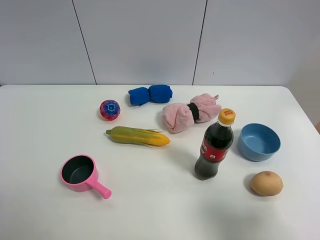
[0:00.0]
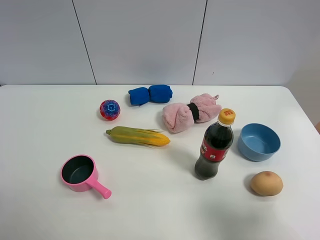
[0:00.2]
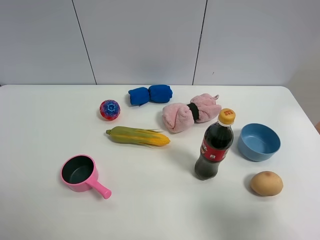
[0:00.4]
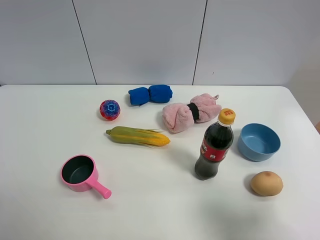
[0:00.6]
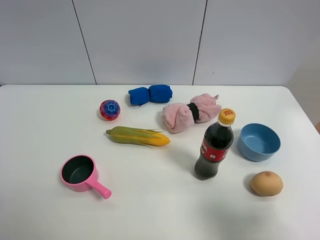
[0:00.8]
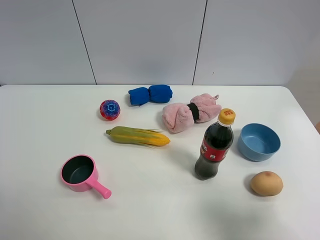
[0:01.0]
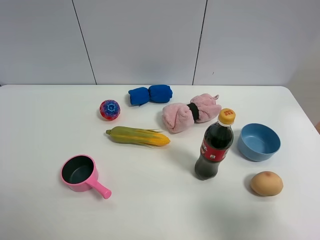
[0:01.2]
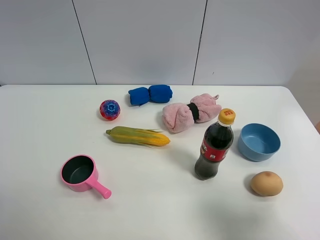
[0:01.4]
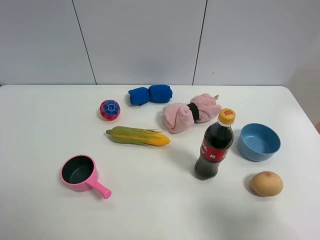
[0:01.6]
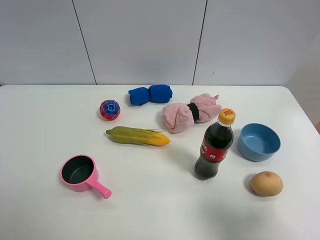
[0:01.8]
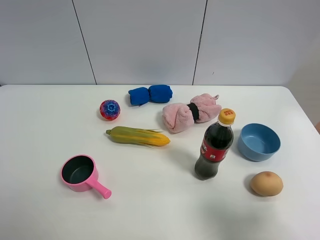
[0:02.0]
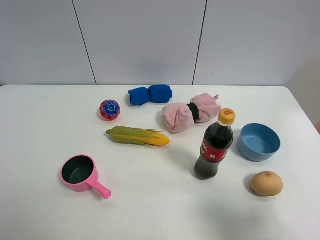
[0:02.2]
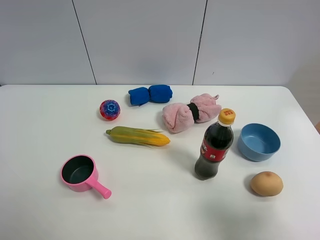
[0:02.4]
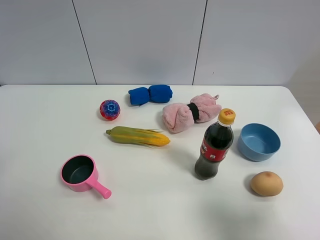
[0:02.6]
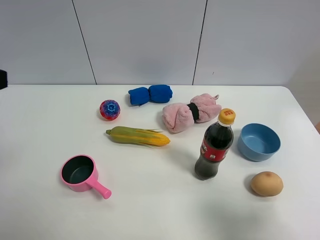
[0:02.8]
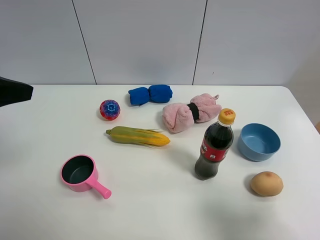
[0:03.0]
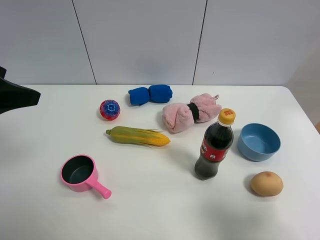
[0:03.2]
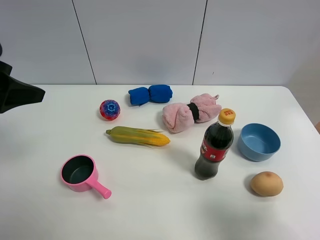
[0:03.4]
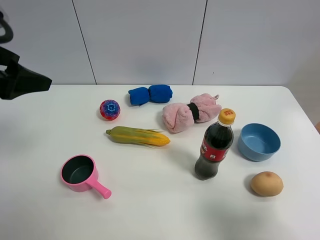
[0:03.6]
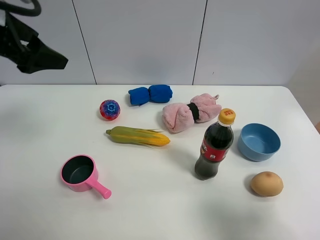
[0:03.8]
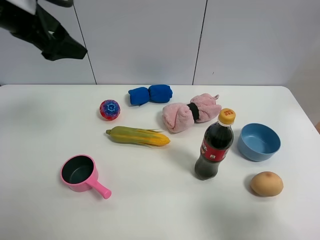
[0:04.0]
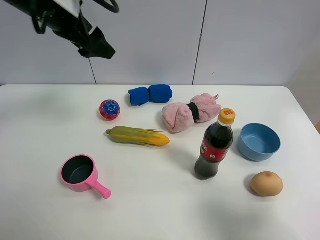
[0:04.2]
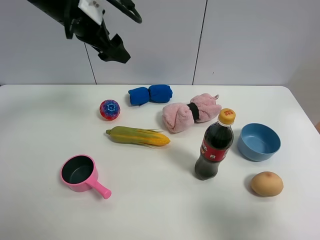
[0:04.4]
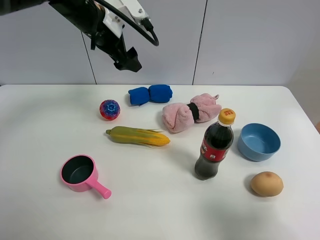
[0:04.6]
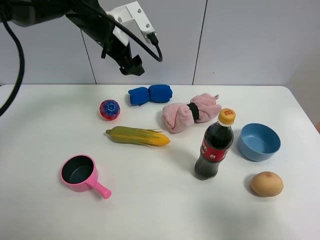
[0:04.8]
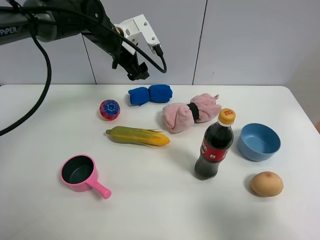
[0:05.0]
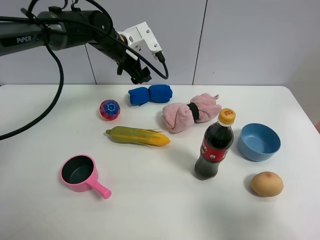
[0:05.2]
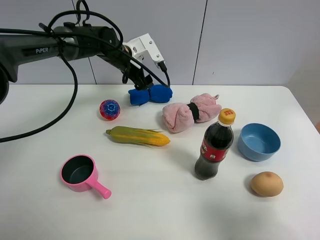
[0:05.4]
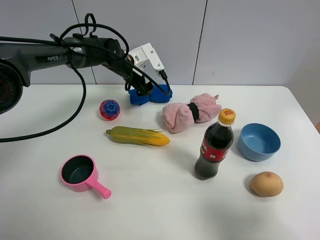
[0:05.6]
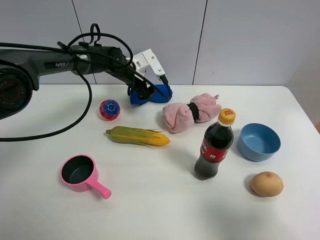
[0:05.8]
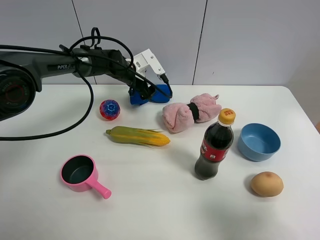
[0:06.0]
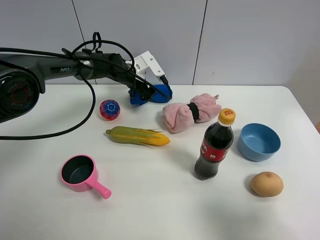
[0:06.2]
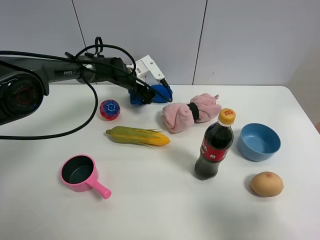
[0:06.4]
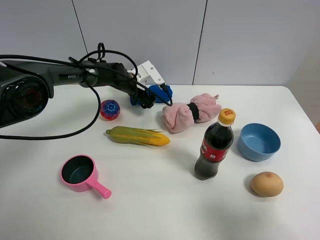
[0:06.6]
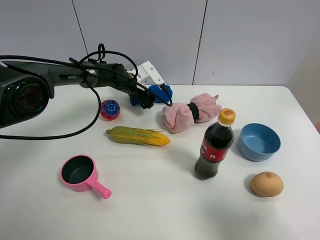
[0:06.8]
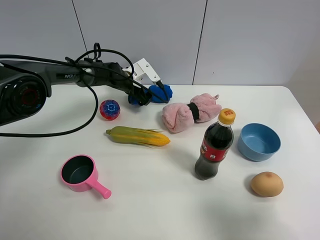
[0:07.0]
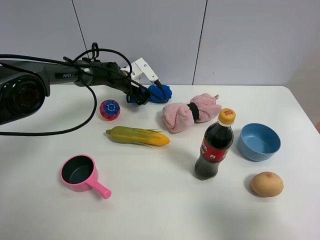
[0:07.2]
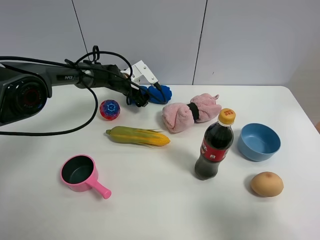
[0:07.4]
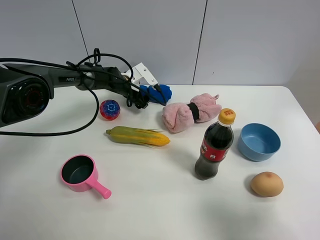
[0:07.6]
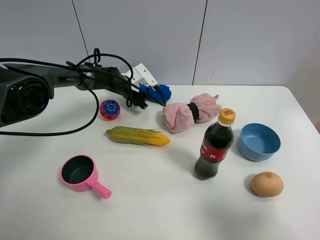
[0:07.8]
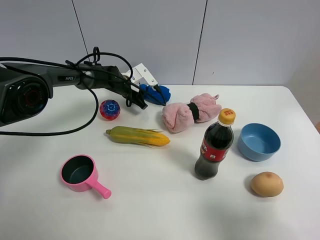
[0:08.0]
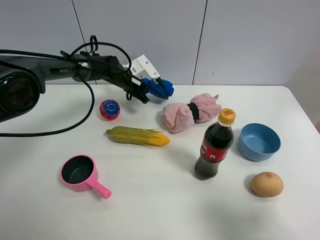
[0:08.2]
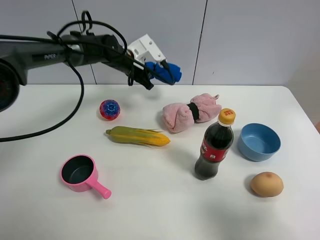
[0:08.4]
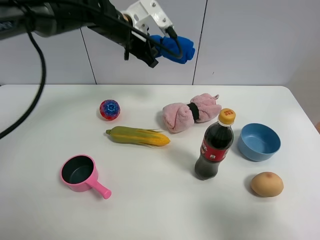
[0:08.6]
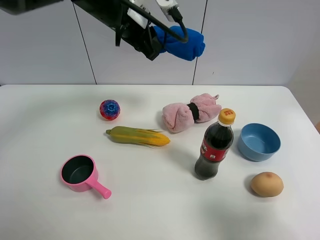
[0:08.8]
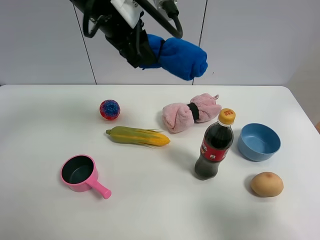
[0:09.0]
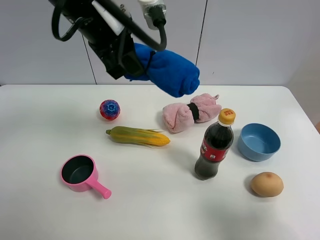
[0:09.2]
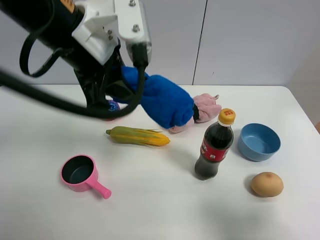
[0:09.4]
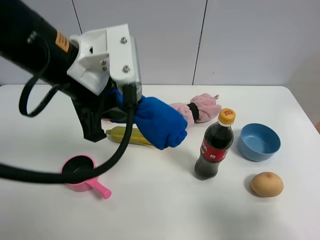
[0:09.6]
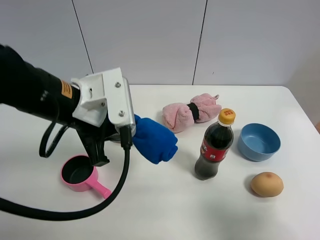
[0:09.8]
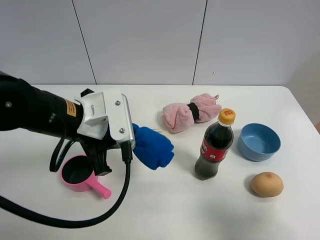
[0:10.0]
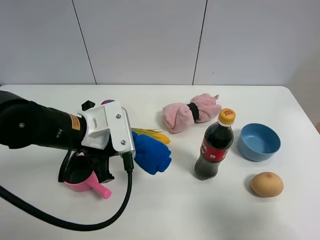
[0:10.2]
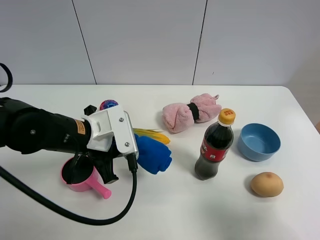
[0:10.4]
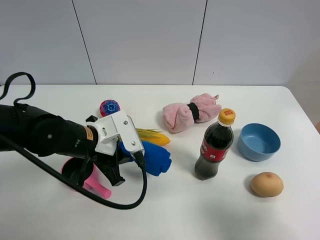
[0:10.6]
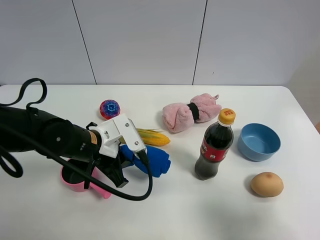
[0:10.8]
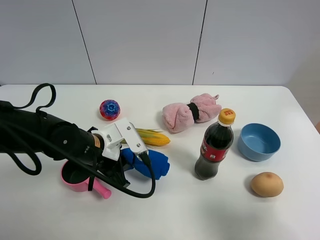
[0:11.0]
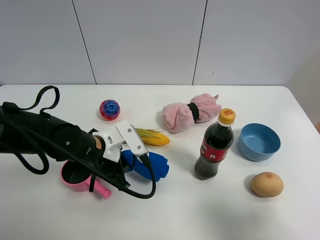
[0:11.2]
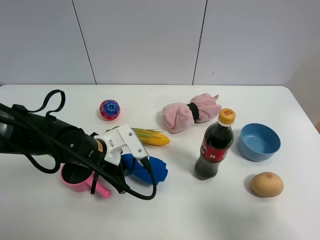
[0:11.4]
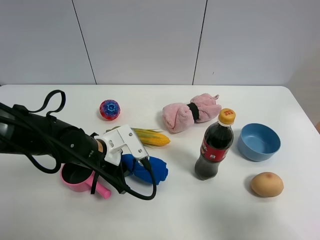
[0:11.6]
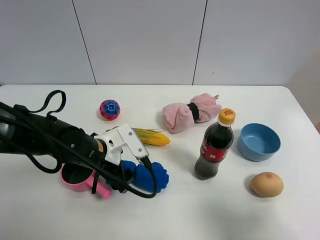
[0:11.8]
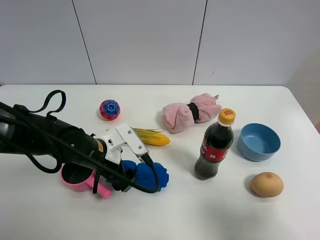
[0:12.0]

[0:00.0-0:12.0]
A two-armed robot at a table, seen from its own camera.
Task of the whole recording: the gripper move the object.
Step, 0.0 to 8.0 s: Grasp the blue towel with the left gripper.
Step, 8.2 to 11.8 s: Place the blue towel on the table with the left gripper.
0.0 to 1.6 s: The two grippers keep their place.
1.6 to 3.0 s: The left gripper heads forward and upward, covering about 20 cm.
3.0 to 4.4 s: The left gripper moves forward and to the right, approximately 25 cm.
4.4 to 6.0 s: The left gripper is displaced downward and forward by about 25 cm.
6.0 to 7.6 s: The left gripper heads downward, covering some 5 cm.
7.6 to 9.0 s: The left gripper moves upward and backward, roughly 35 cm, and closes.
9.0 to 10.4 s: The left gripper is displaced downward and backward by approximately 20 cm.
10.4 to 12.0 s: The left gripper is displaced downward by roughly 5 cm, and opens its fingers.

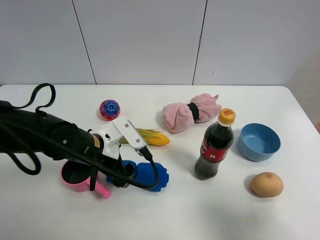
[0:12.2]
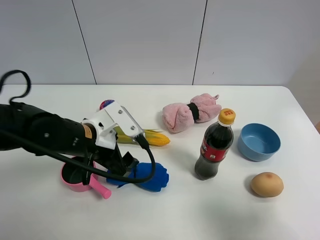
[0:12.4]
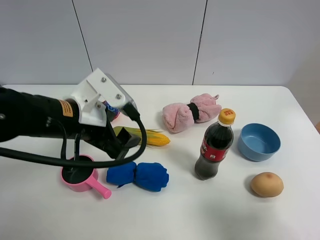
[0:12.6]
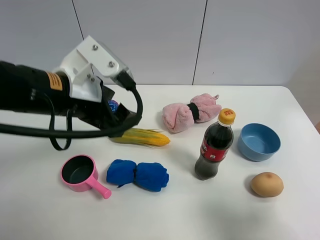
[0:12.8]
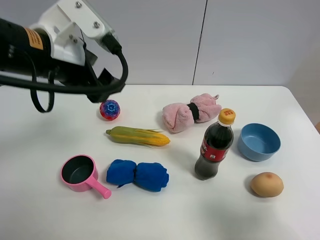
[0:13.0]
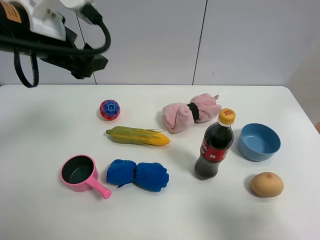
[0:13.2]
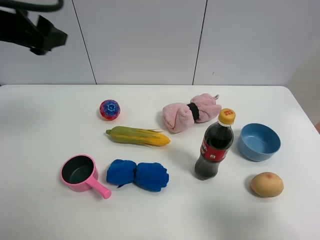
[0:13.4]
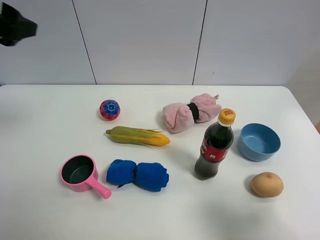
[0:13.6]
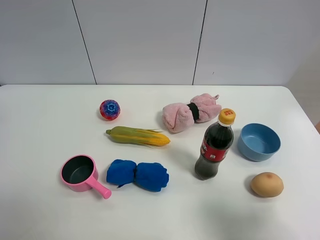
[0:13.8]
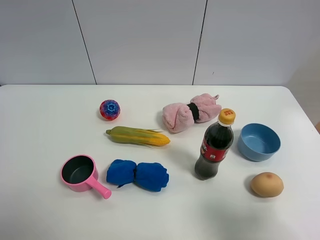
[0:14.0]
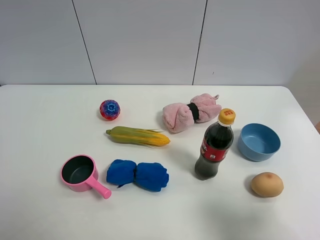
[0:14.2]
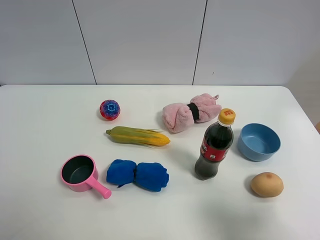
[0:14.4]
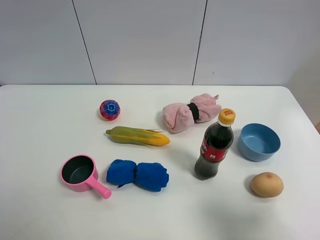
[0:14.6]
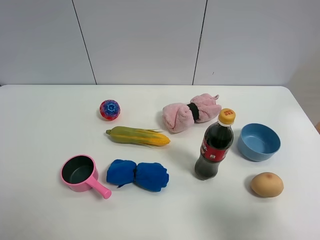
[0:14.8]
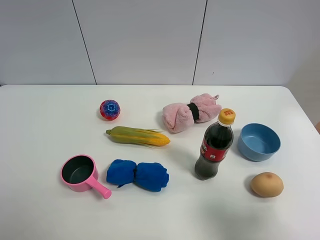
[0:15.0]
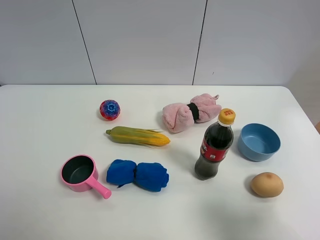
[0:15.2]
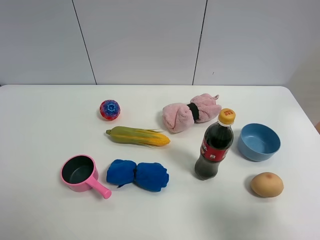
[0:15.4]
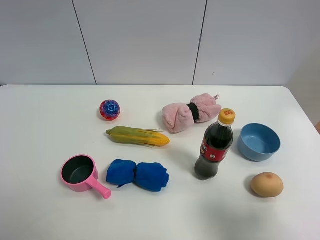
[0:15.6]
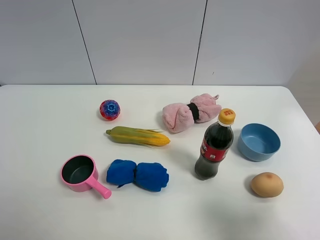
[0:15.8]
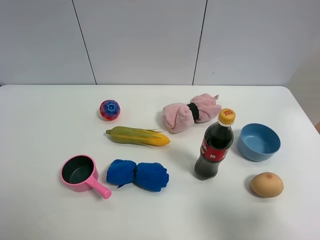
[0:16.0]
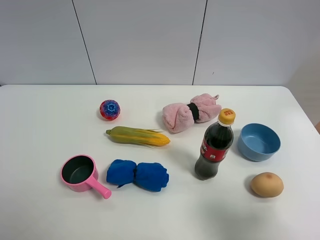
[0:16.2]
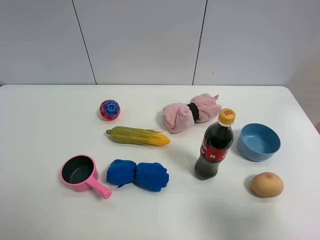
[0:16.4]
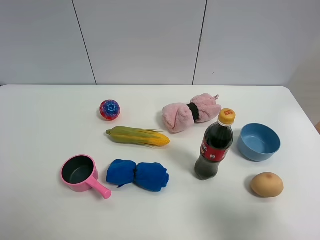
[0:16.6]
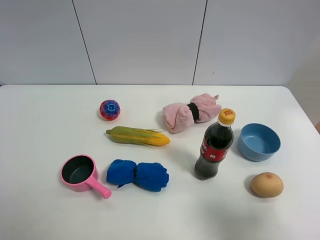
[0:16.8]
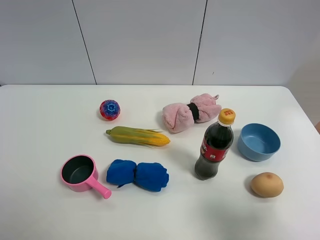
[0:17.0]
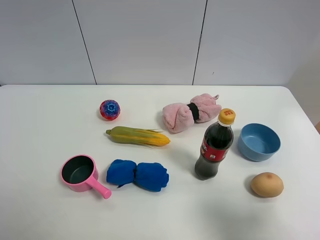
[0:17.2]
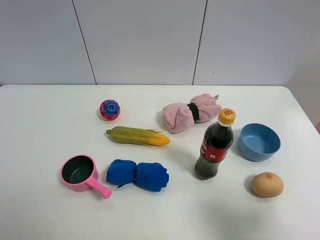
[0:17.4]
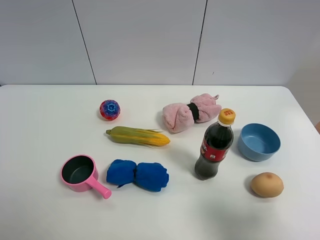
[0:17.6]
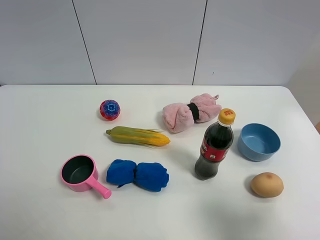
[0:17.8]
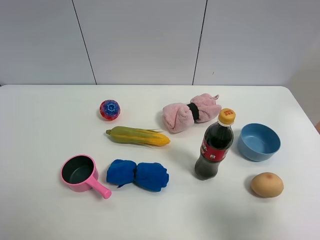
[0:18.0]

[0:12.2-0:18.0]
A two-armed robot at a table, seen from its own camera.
Task of the whole recording: the gripper move the object.
12.2 to 13.6 s: The left gripper heads upward and to the left, covering roughly 30 cm.
13.6 to 15.0 s: The left gripper heads backward, covering roughly 25 cm.
16.6 to 18.0 s: Neither gripper changes place.

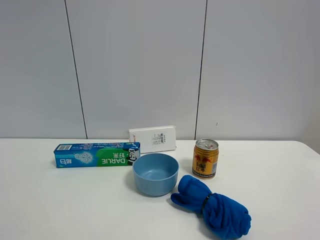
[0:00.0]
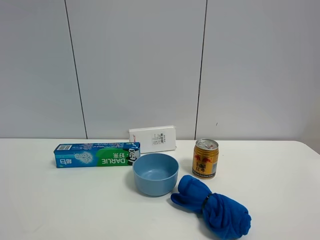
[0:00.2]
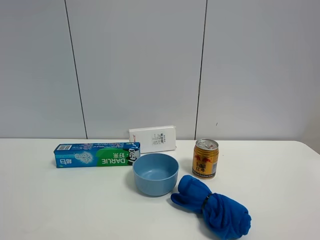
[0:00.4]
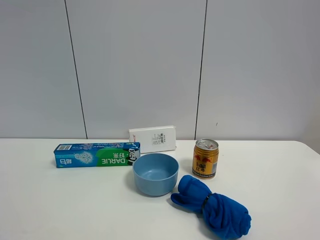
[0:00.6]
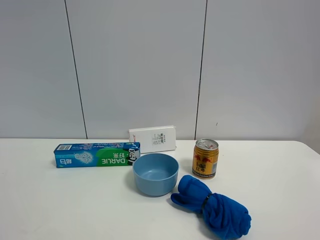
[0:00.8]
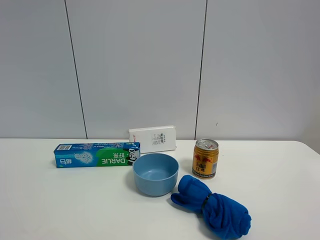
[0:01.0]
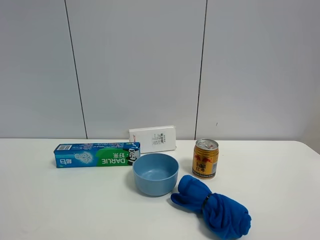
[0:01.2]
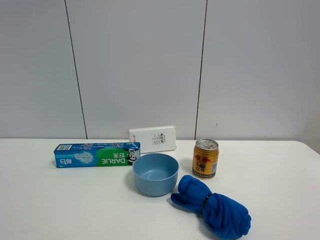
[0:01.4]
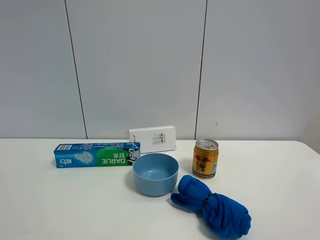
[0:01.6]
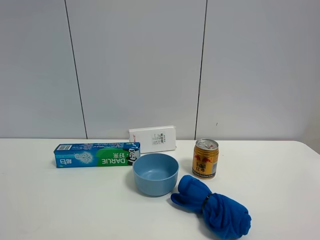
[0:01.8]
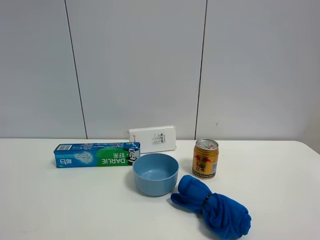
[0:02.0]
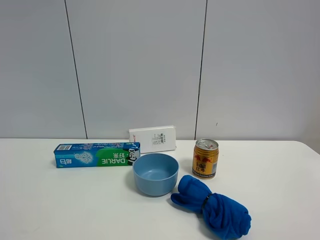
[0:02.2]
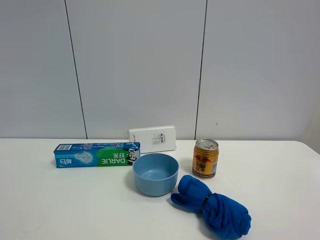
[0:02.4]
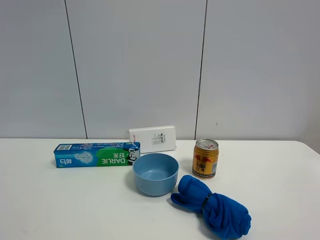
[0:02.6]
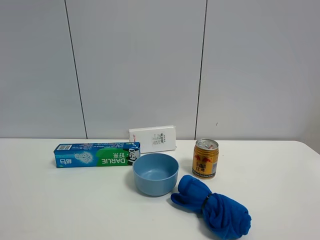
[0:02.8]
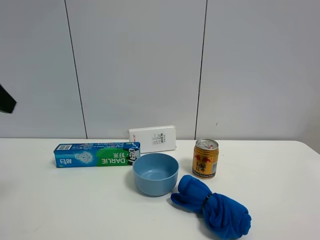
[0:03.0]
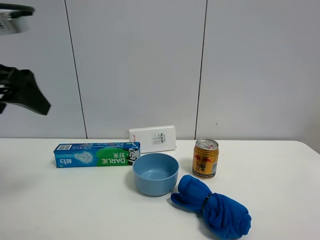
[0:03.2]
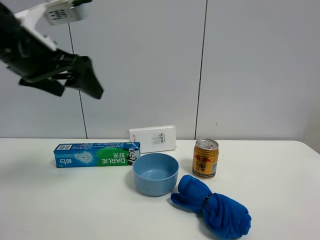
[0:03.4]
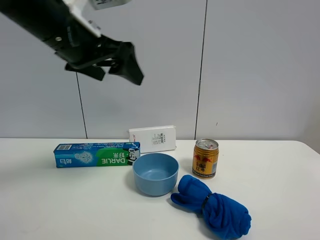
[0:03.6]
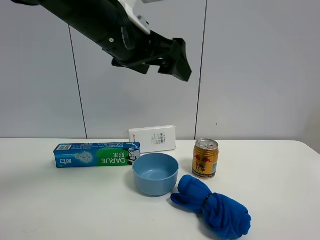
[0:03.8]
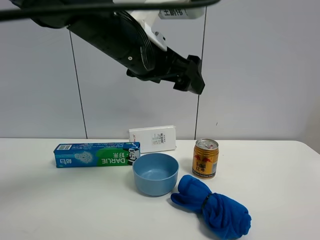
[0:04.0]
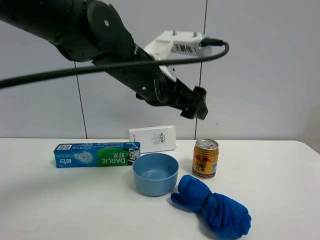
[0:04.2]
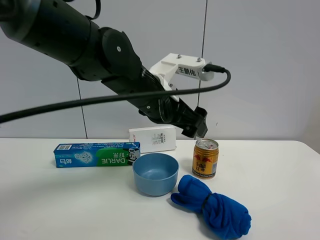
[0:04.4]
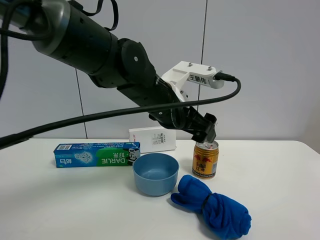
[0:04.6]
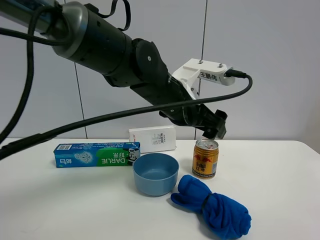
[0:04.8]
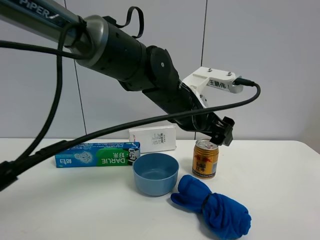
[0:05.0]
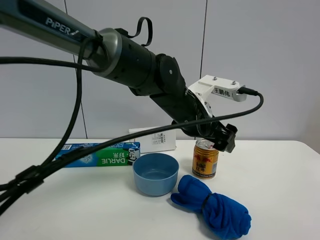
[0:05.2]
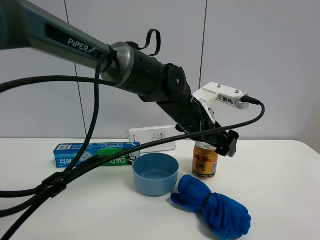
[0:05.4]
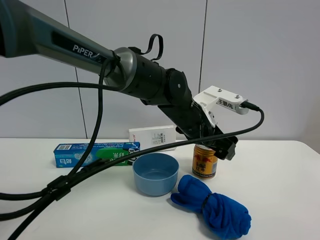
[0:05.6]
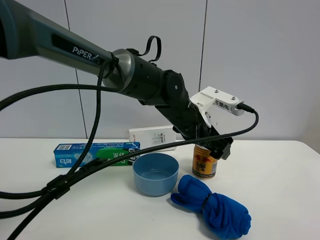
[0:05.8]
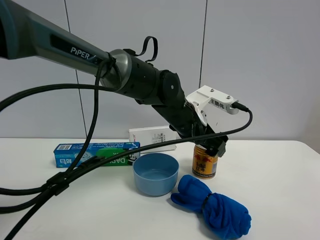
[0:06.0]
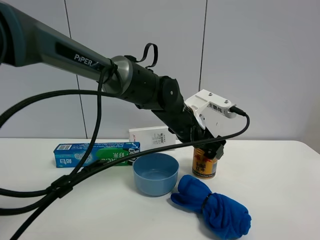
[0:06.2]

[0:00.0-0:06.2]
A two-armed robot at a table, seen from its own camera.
Task of the whole recording: the gripper move the object.
1.6 to 3.2 s: The left gripper is displaced forward by some 25 cm.
3.2 to 4.6 s: The left gripper moves to the right, approximately 30 cm.
4.6 to 6.2 s: The left gripper travels forward, to the right and downward by some 10 cm.
